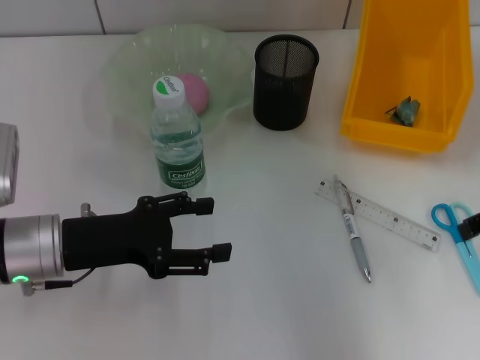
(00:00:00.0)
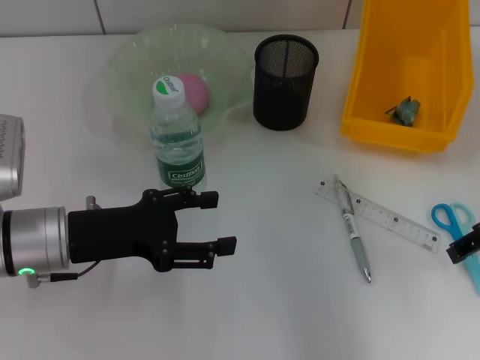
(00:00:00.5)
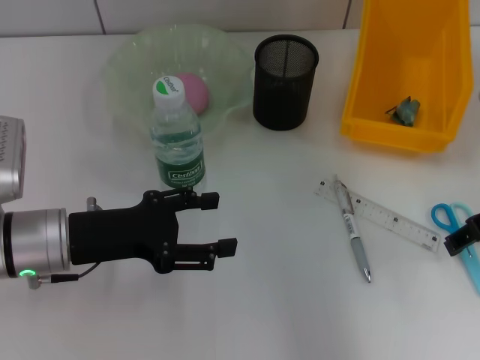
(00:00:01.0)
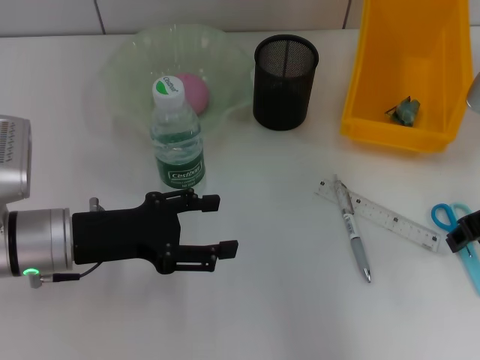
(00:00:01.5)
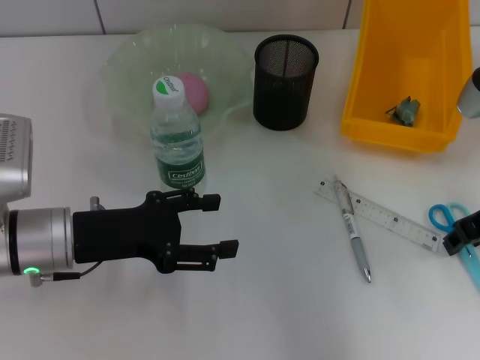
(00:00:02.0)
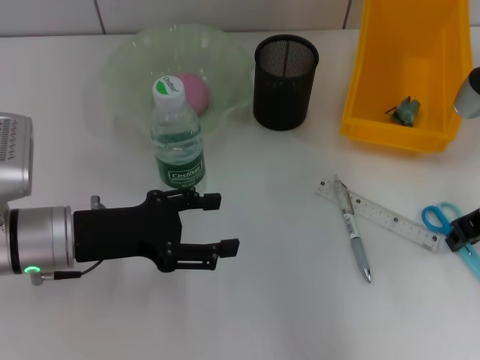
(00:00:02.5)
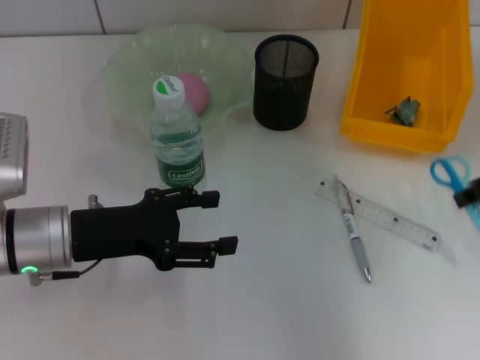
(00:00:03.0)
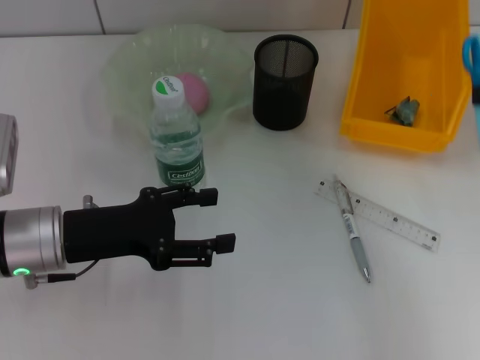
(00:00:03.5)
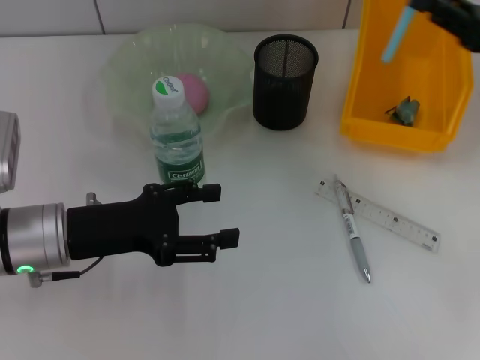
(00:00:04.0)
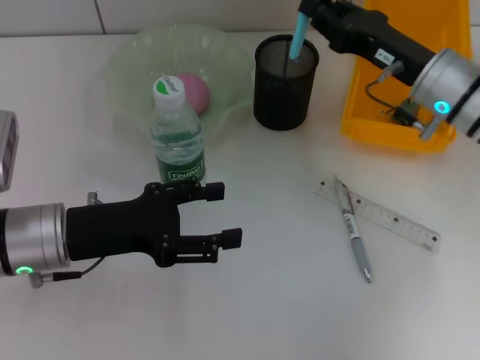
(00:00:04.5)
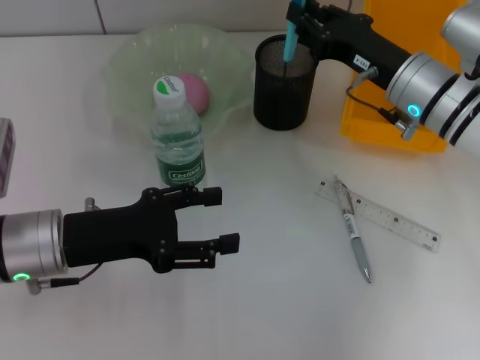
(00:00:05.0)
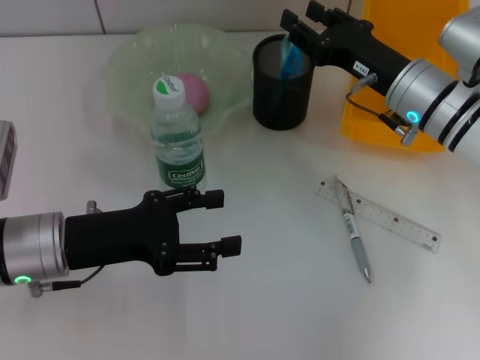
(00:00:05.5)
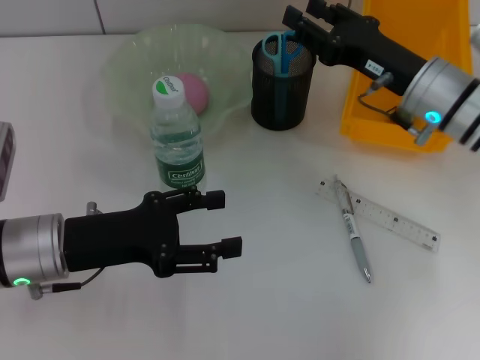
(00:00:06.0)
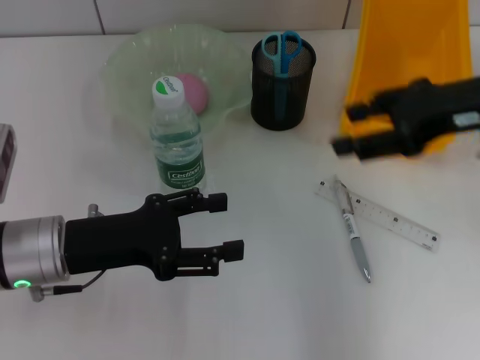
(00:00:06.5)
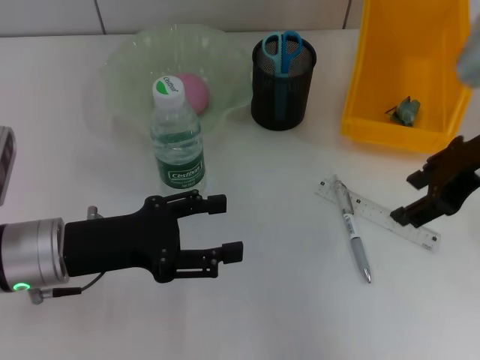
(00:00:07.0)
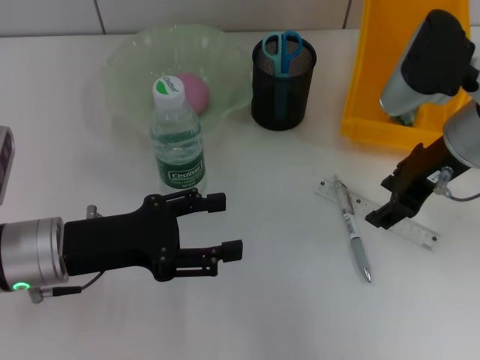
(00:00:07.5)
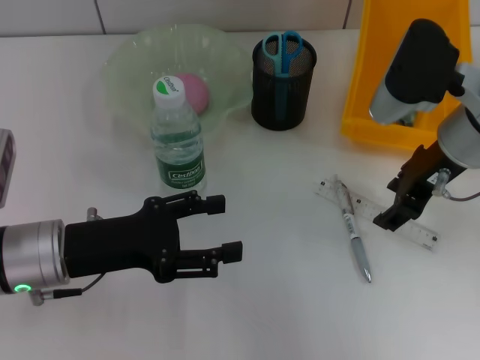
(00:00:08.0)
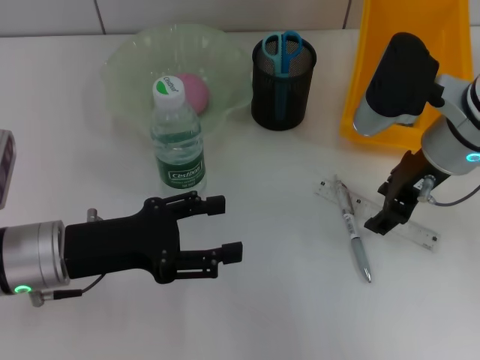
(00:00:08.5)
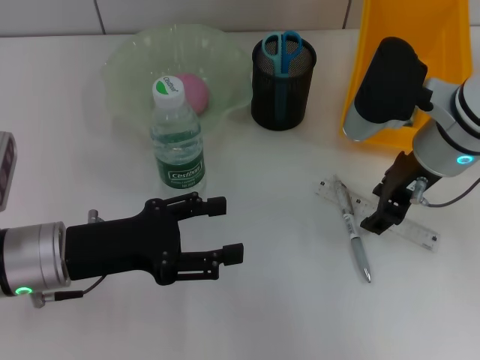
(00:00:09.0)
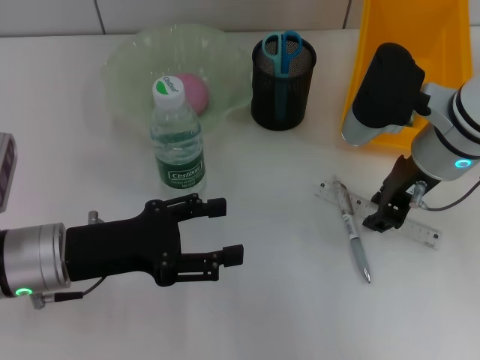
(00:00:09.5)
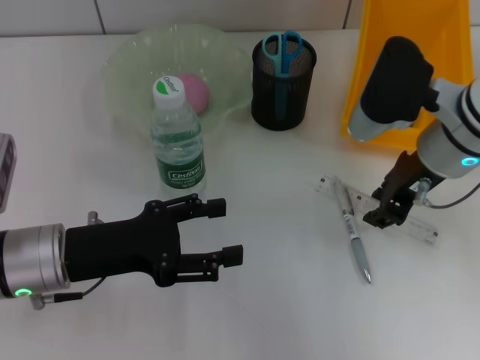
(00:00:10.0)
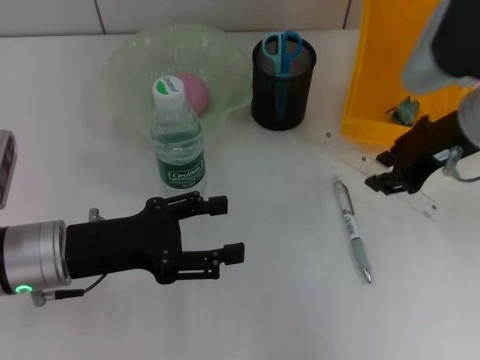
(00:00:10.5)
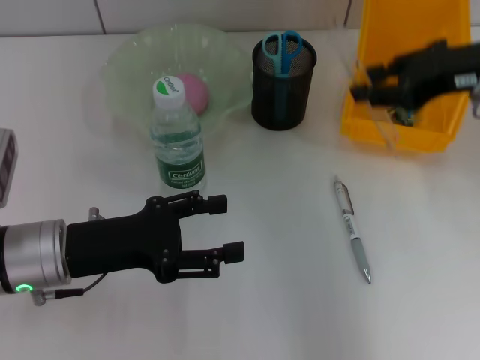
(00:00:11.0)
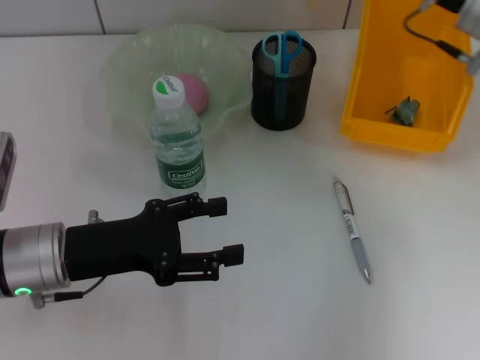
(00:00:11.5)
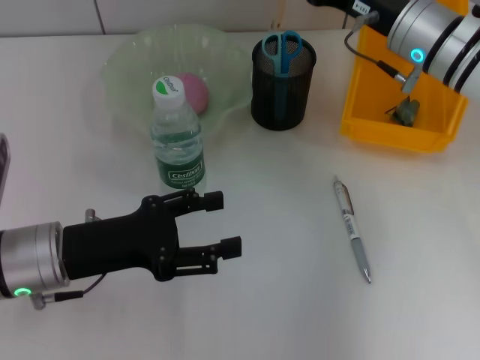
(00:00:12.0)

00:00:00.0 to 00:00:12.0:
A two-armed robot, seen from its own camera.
Step, 00:00:00.0 to 00:00:02.0: Grab the blue scissors with the right hand.
Step, 00:00:02.5 to 00:00:05.5: Place the blue scissors into the pen holder with the right hand.
Step, 00:00:06.0 to 00:00:09.5: Grab the ruler with the right hand.
00:00:00.0 to 00:00:02.0: The right gripper shifts by roughly 5 cm, and closes.
00:00:02.0 to 00:00:04.0: The right gripper moves approximately 10 cm upward and comes back.
00:00:04.0 to 00:00:06.0: The right gripper moves to the left, roughly 10 cm, and opens up.
00:00:06.0 to 00:00:08.0: The right gripper goes approximately 5 cm upward.
00:00:08.0 to 00:00:10.0: The right gripper closes up.
00:00:10.0 to 00:00:12.0: The right gripper shifts roughly 5 cm forward, and reaches approximately 10 cm upward, then returns.

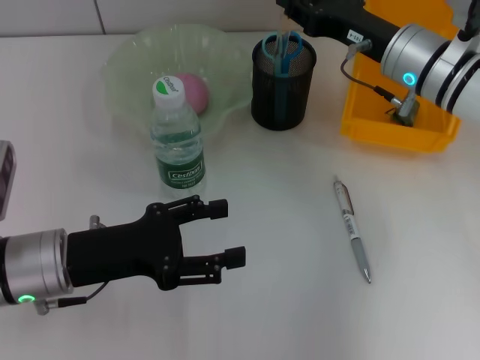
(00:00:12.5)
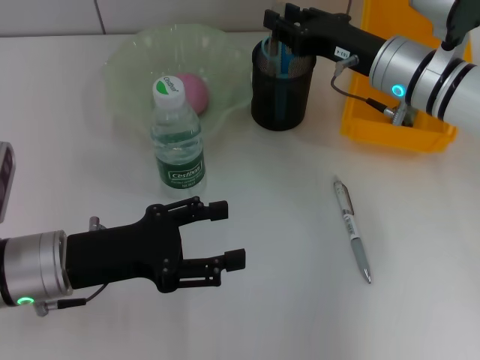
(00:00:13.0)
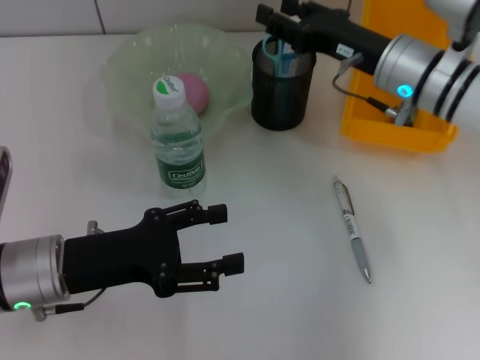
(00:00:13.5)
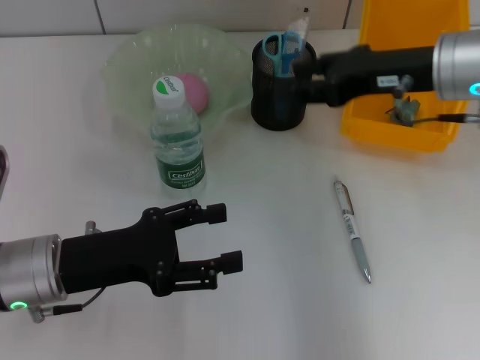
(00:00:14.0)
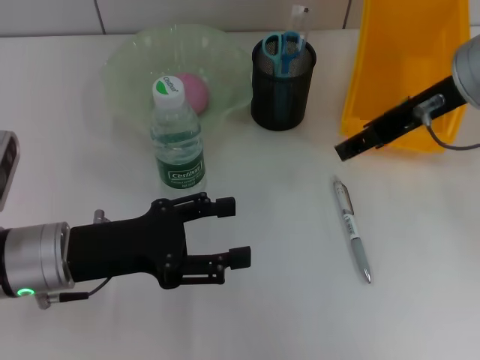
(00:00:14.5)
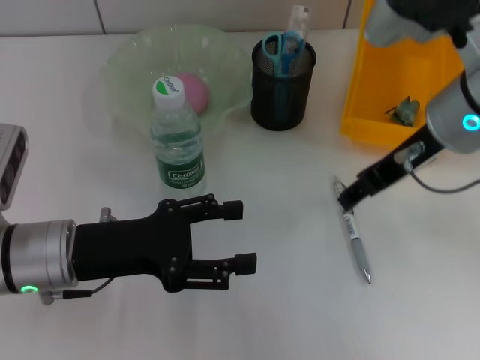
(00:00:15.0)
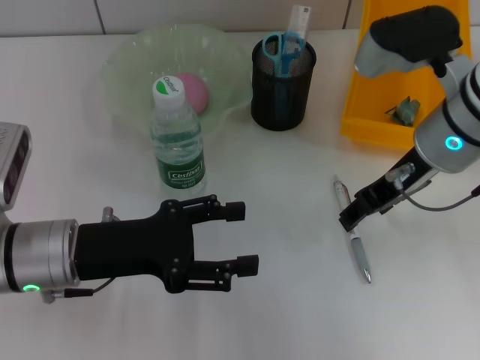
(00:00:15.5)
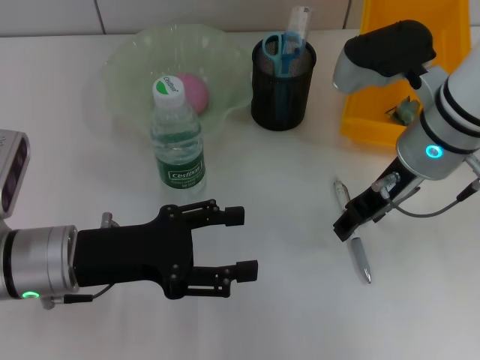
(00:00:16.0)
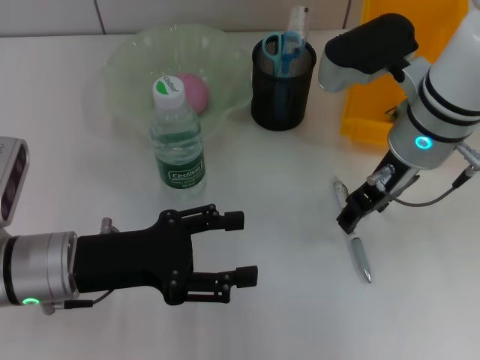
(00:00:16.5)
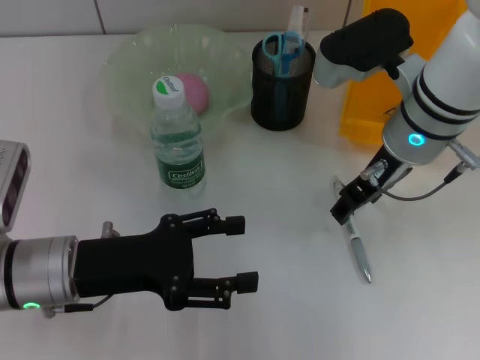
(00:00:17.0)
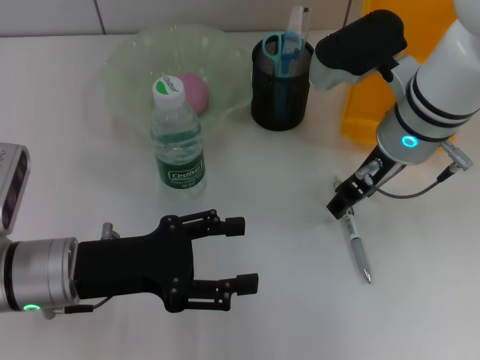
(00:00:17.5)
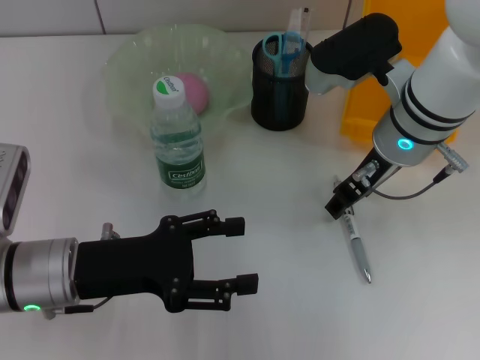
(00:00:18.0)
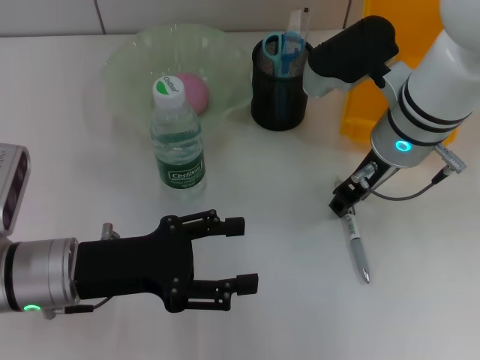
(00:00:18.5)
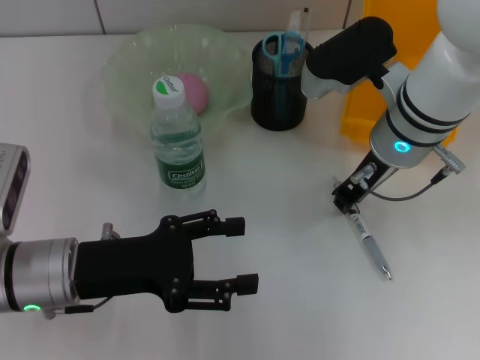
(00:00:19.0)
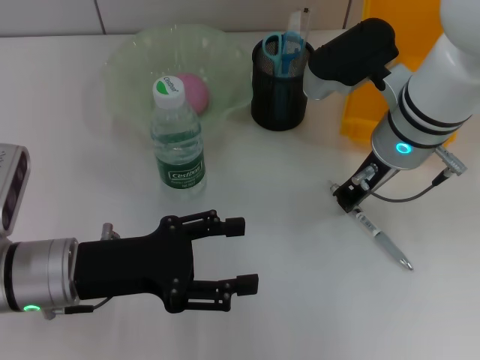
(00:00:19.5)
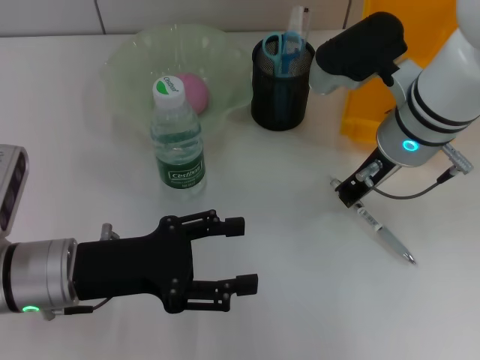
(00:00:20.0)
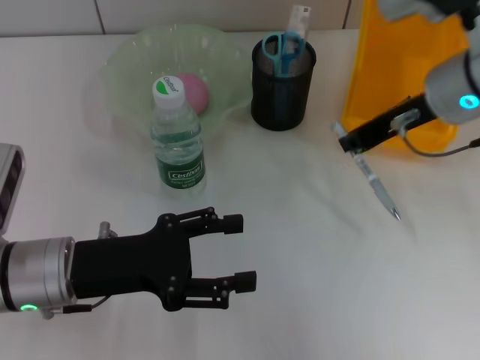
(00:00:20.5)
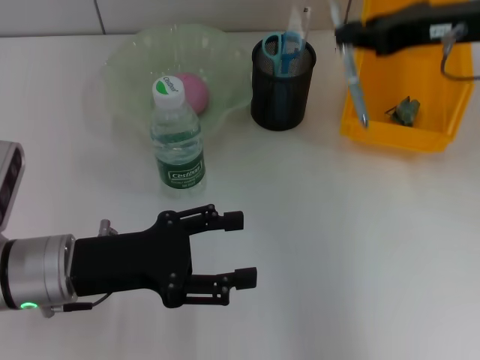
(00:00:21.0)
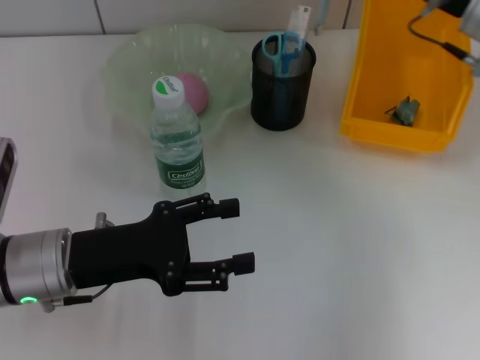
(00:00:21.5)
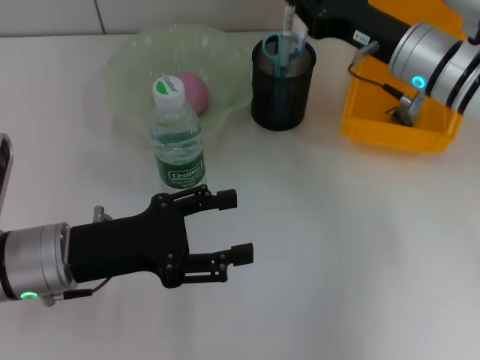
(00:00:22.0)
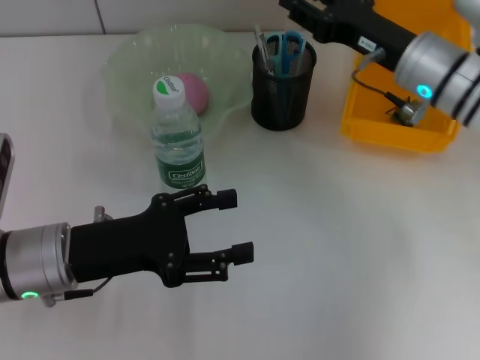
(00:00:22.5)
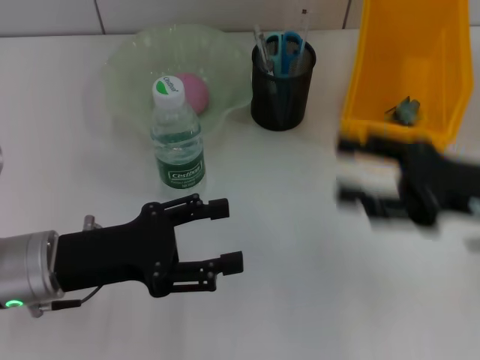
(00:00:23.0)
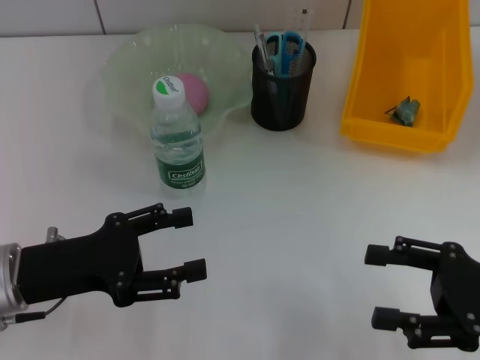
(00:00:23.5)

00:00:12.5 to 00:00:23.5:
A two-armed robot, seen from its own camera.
Step, 00:00:14.0 to 00:00:19.0: Grab the gray spring-action pen with the right hand.
Step, 00:00:20.0 to 00:00:22.5: Place the gray spring-action pen into the pen holder with the right hand.
00:00:12.5 to 00:00:14.5: The right gripper is displaced upward and backward by roughly 15 cm.
00:00:14.5 to 00:00:16.0: The right gripper goes about 10 cm downward.
00:00:16.0 to 00:00:18.0: There are only small adjustments of the grippers.
00:00:18.0 to 00:00:20.0: The right gripper closes.
00:00:20.0 to 00:00:21.5: The right gripper goes about 10 cm to the right.
00:00:21.5 to 00:00:23.5: The right gripper shifts roughly 20 cm backward and downward, and opens.
